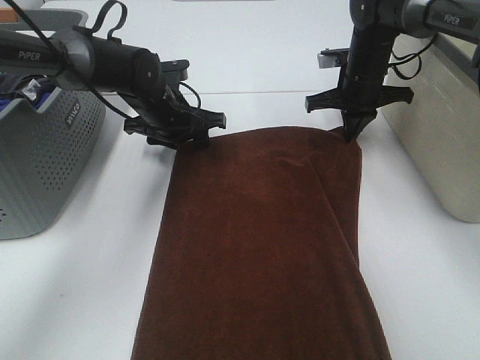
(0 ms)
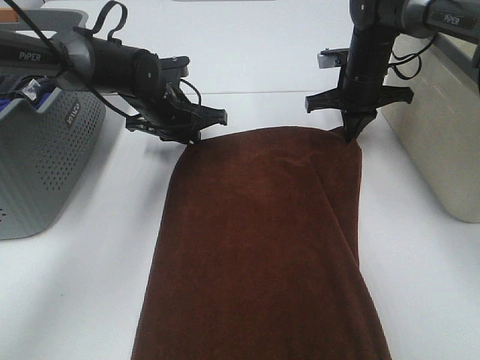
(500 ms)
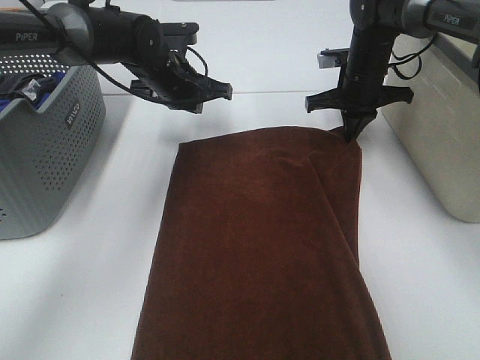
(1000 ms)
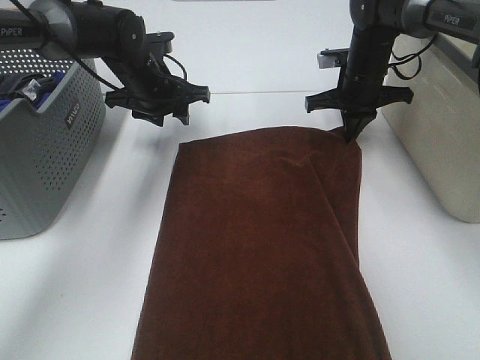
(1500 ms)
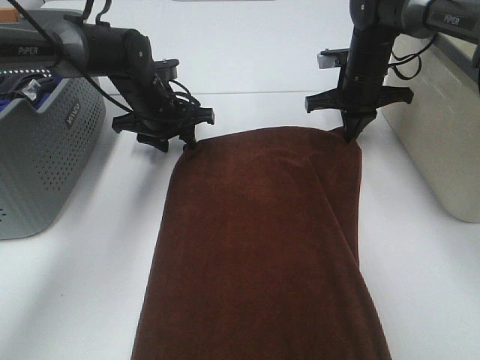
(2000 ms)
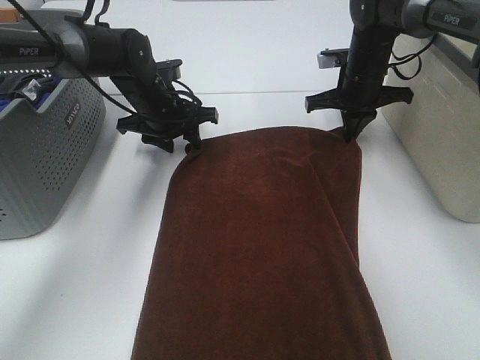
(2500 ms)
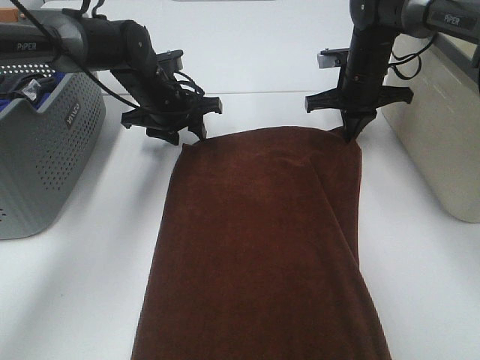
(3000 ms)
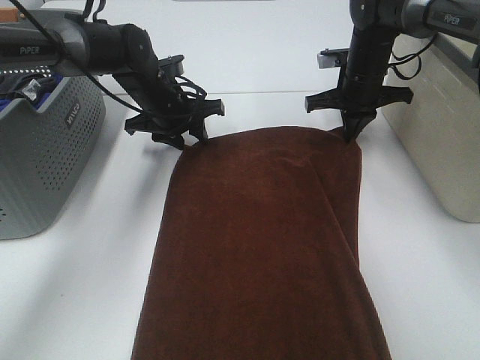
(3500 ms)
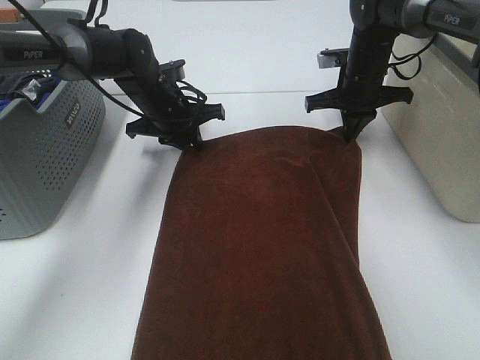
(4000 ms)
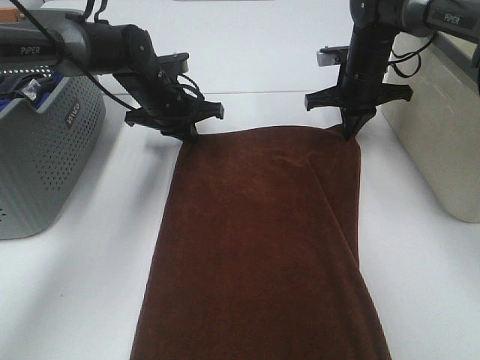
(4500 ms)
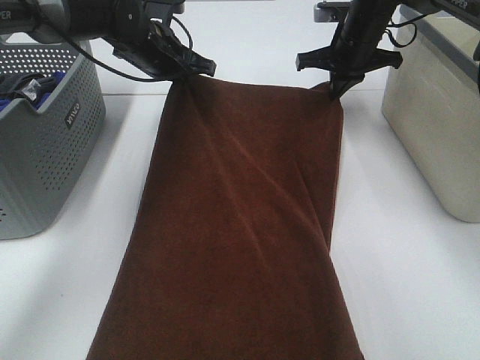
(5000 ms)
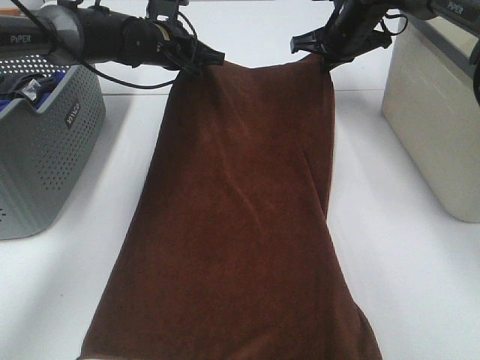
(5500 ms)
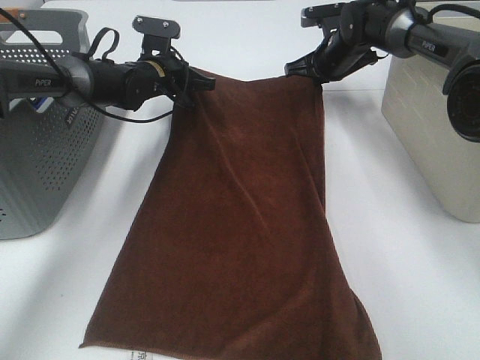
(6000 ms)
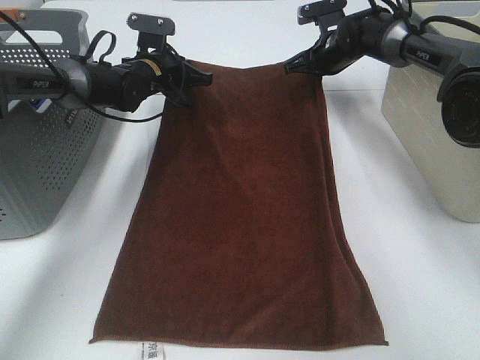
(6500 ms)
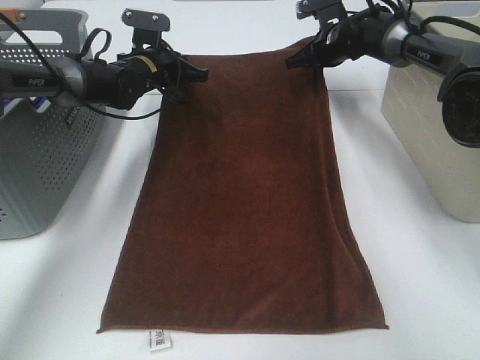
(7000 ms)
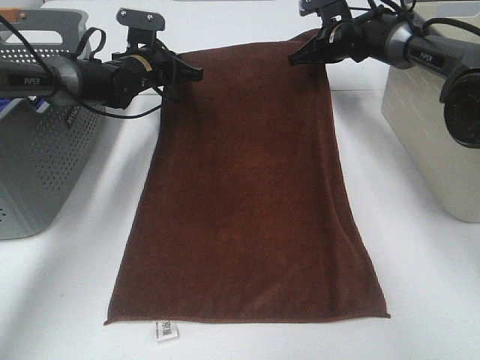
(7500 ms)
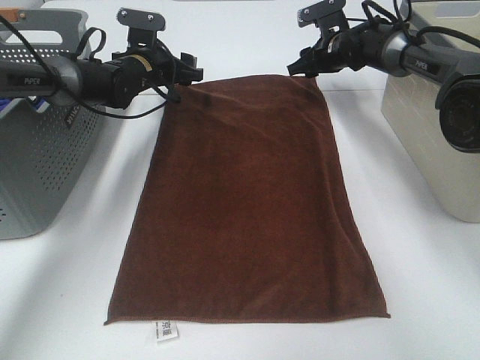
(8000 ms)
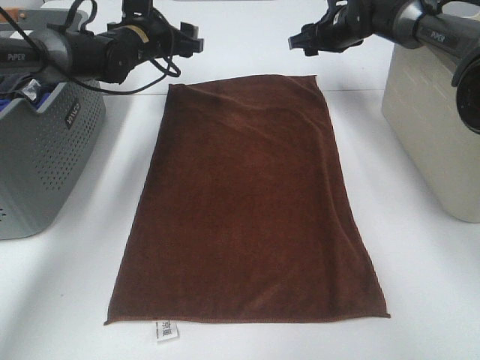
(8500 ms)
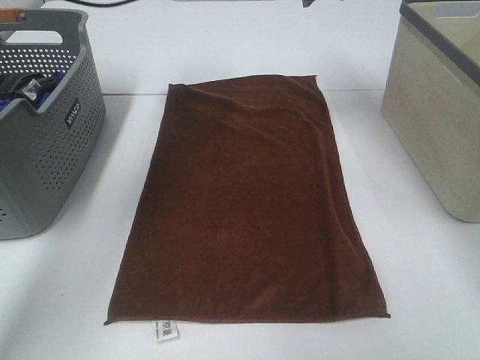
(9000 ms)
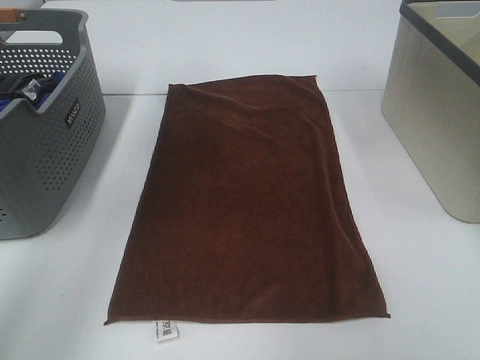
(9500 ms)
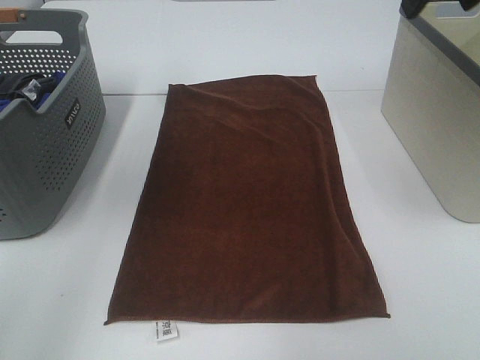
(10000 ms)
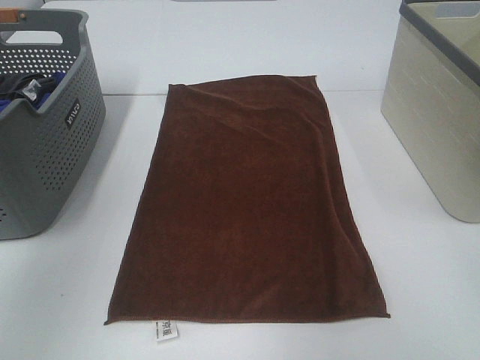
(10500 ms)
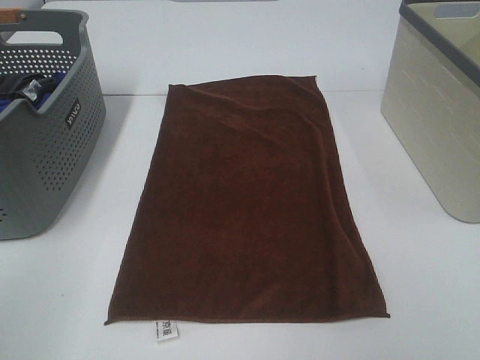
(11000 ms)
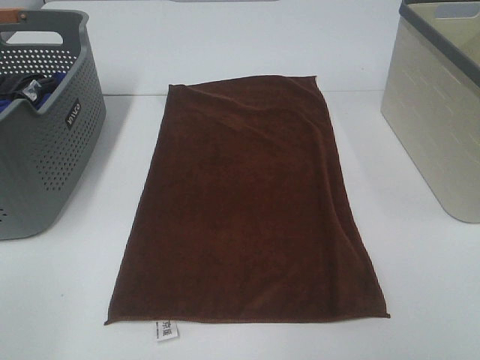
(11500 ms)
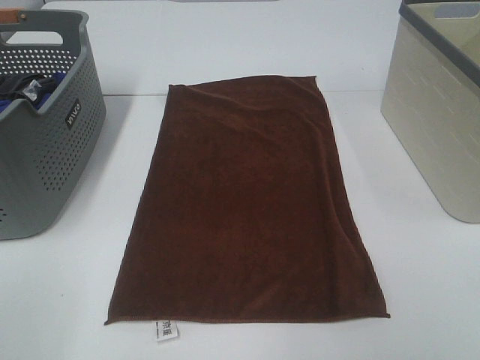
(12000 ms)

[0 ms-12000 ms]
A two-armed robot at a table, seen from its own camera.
Task of the whole recording: Remove the towel and place it.
0 ms to 2000 ms: The left gripper closes, then opens again.
2000 ms to 4000 ms: The left gripper closes up.
4000 ms to 6000 ms: Both grippers travel together forward, roughly 5 cm.
6000 ms to 8000 ms: The left gripper opens up, while the right gripper opens its fingers.
8000 ms to 10000 ms: The right gripper is displaced backward and upward by approximately 40 cm. The left gripper moves upward and backward, roughly 40 cm.
10000 ms to 12000 ms: The left gripper goes approximately 35 cm backward and downward.

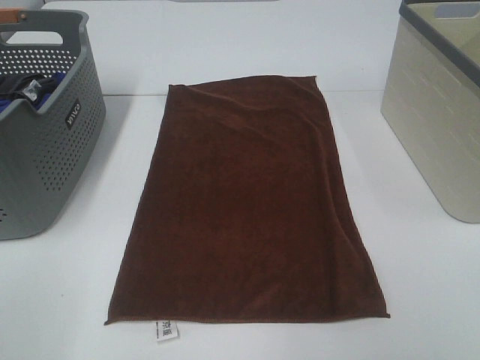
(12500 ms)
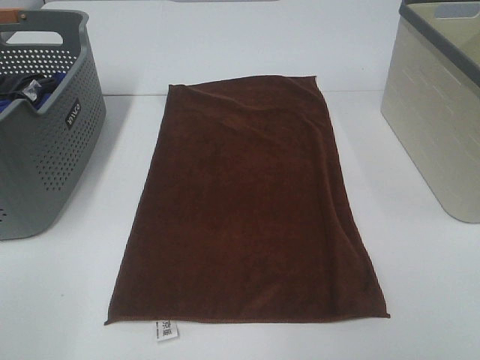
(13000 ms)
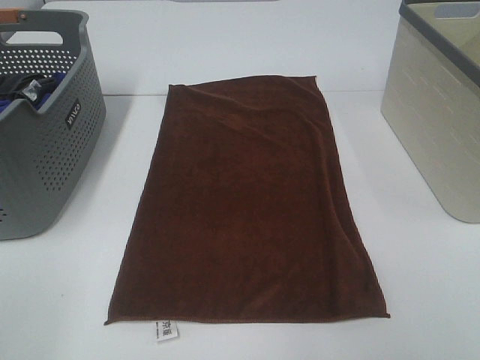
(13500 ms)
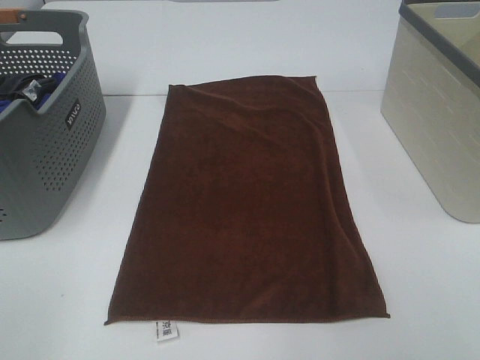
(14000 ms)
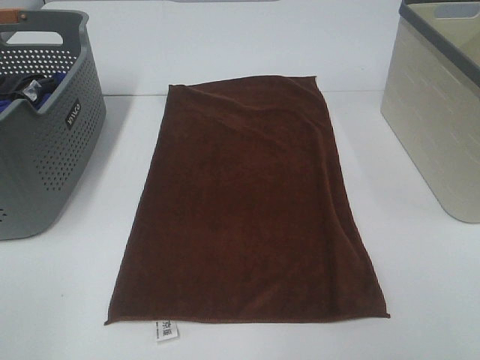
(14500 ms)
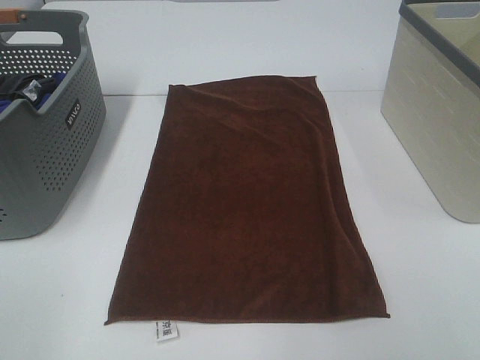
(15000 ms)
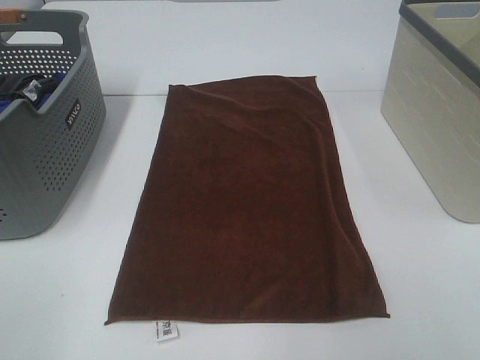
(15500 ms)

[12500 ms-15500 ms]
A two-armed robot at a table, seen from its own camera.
Task of the whole recording: Remove the towel and place it.
14000 ms to 15500 ms: Both grippers stay put.

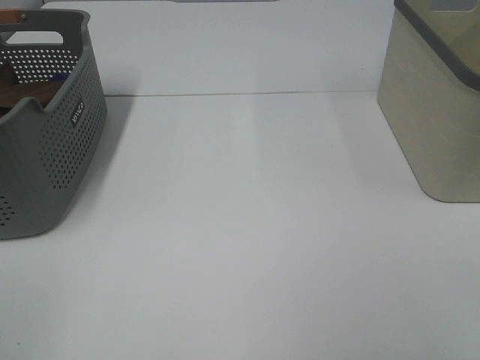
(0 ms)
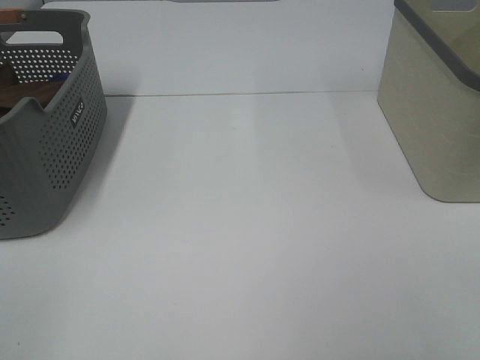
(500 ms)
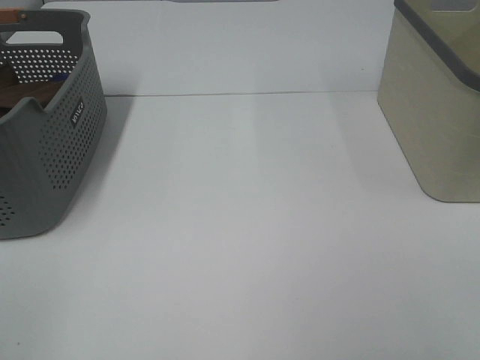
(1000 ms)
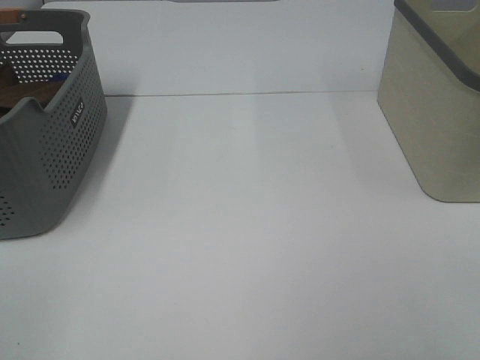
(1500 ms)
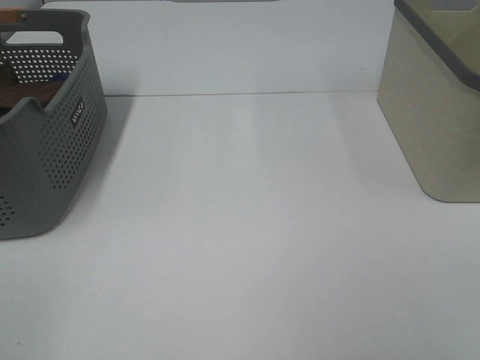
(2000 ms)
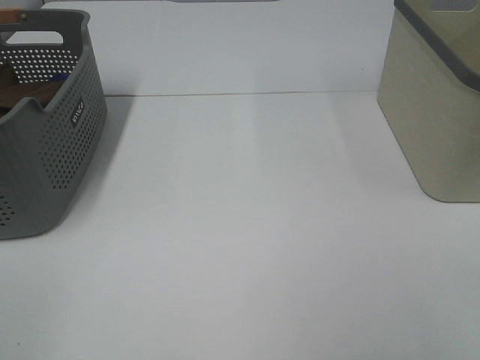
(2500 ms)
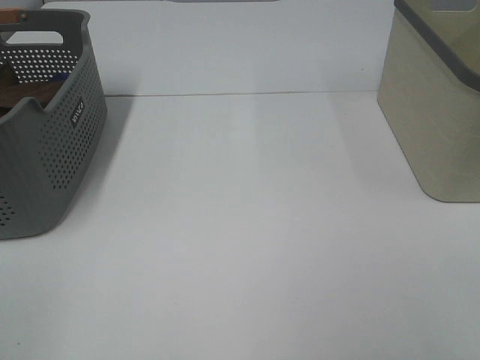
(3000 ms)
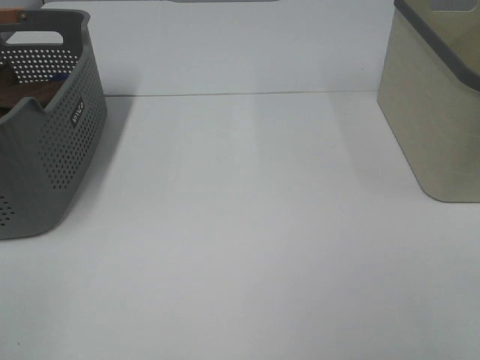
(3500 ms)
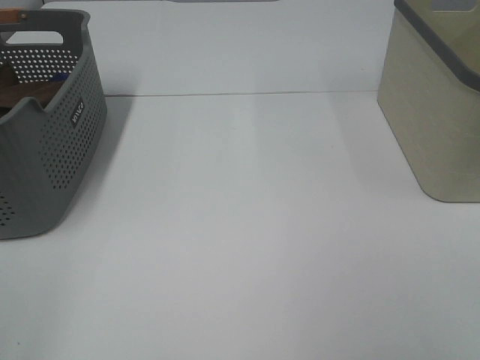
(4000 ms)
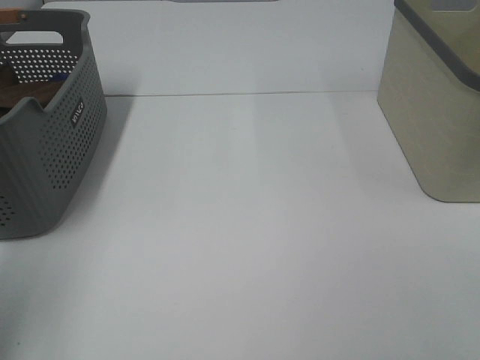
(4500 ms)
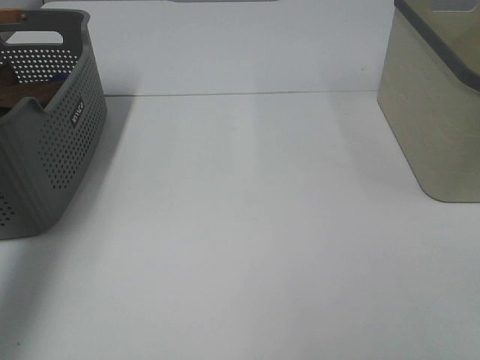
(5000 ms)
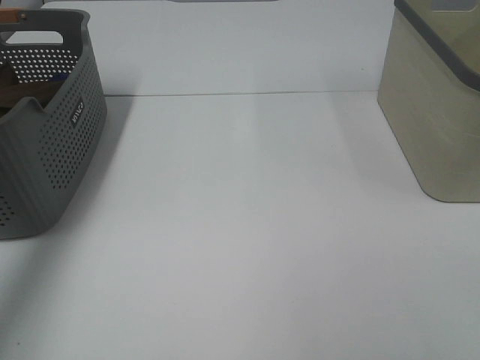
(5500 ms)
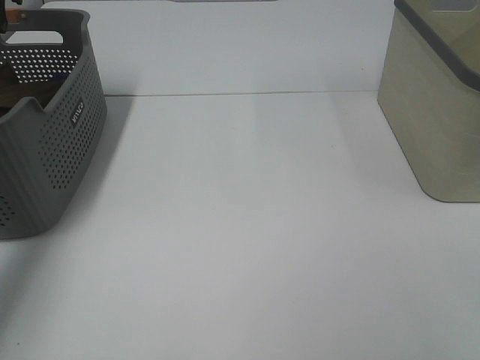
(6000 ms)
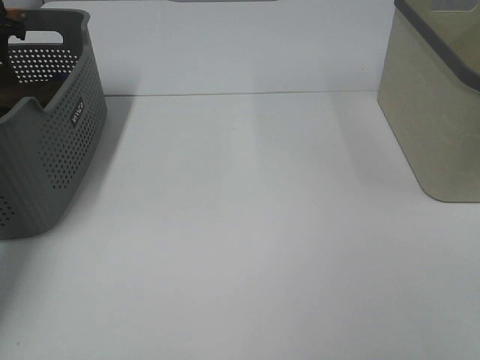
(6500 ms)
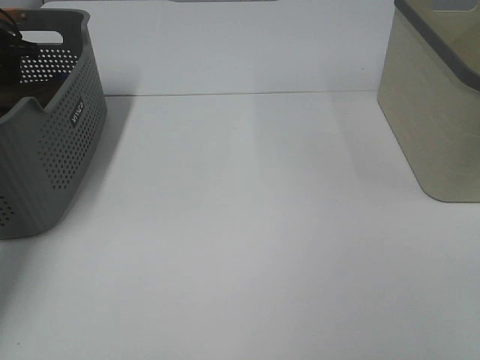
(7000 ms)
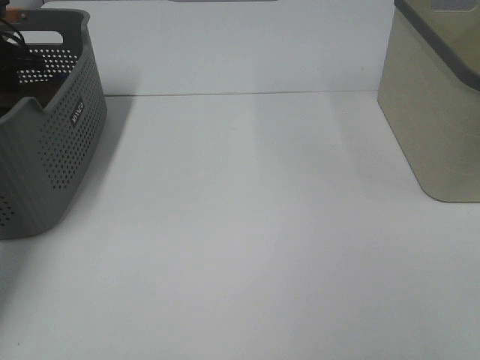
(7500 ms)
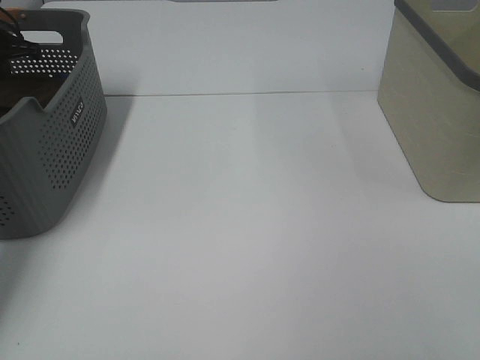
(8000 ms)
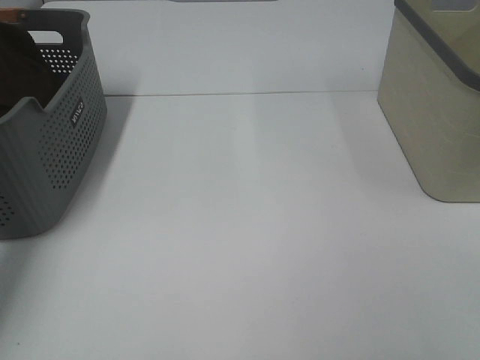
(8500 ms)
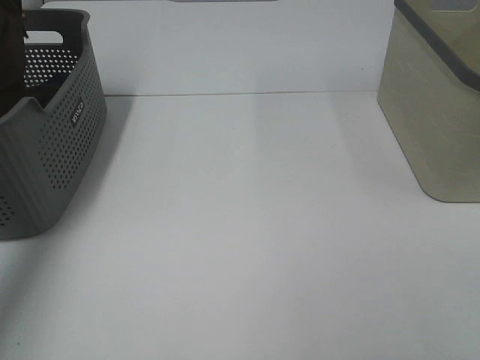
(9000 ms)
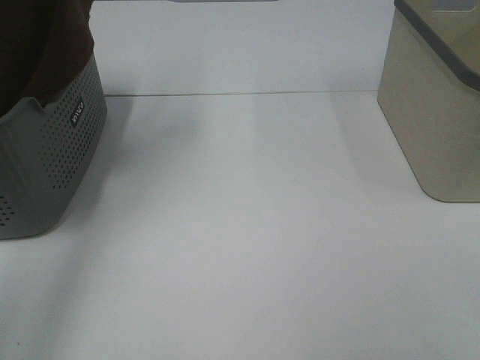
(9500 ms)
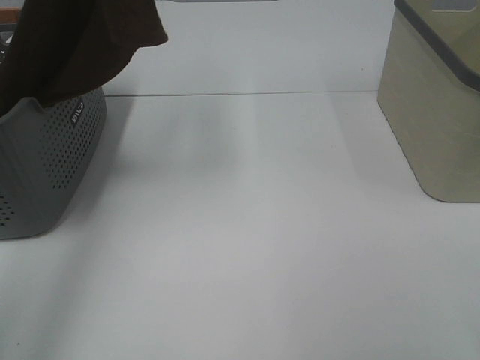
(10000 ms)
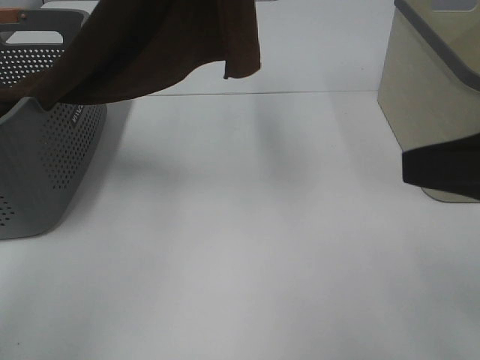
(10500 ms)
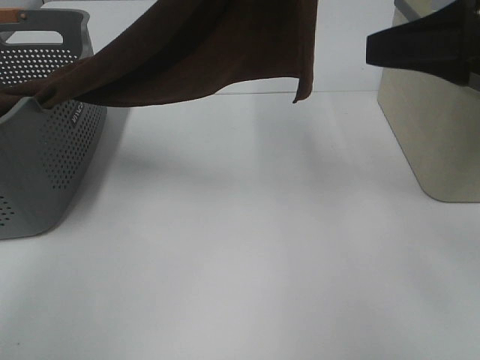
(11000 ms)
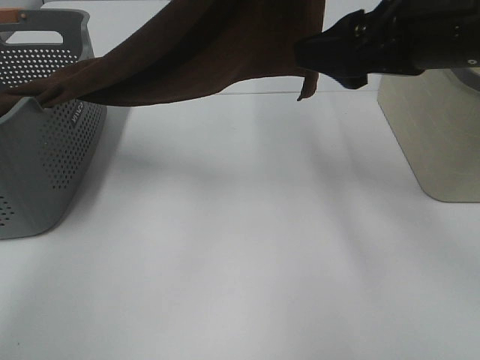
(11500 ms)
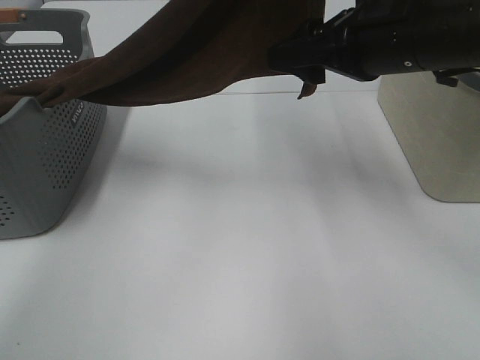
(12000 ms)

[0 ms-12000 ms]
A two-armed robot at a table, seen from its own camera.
Task of the whole recording: Remove the towel and place it.
Step, 9000 ms to 12000 ms: Right hand: grab a corner of the brown towel and straighten it.
0 ms to 2000 ms: Neither gripper changes place.
4000 ms to 6000 ms: The left gripper is displaced forward by roughly 50 cm.
6000 ms to 8000 ms: The left gripper shifts about 10 cm downward, and closes up.
8000 ms to 10000 ms: The left gripper moves upward, to the right and backward, roughly 40 cm.
10000 ms to 12000 ms: The right gripper heads forward and to the left, covering some 30 cm; the left gripper is displaced to the right by about 15 cm.
